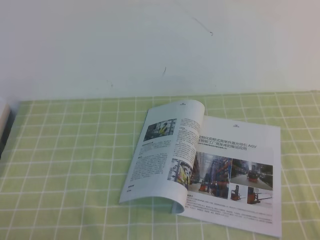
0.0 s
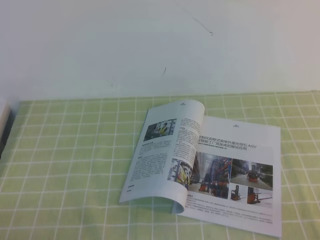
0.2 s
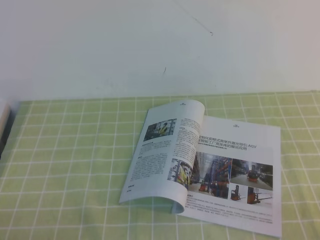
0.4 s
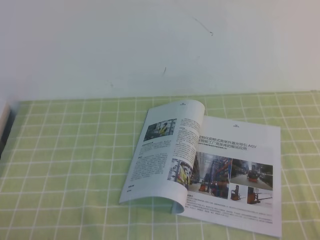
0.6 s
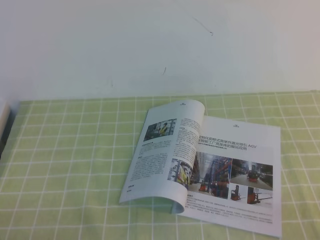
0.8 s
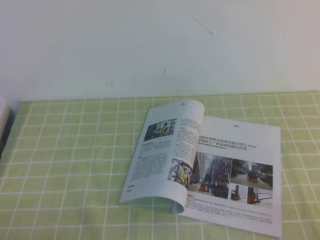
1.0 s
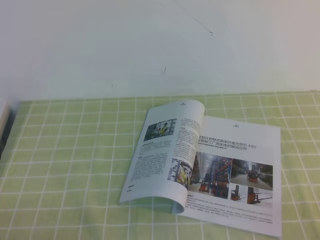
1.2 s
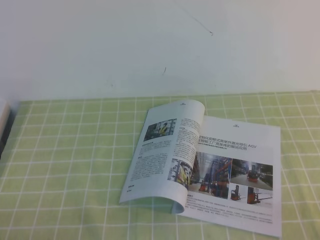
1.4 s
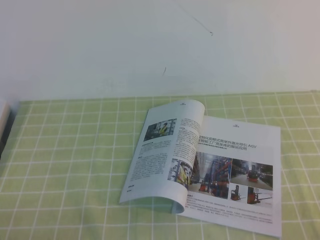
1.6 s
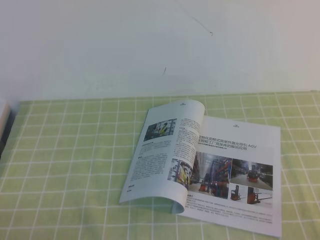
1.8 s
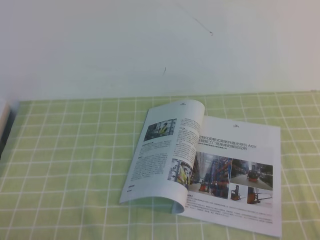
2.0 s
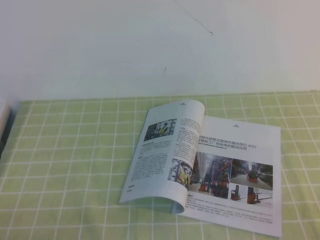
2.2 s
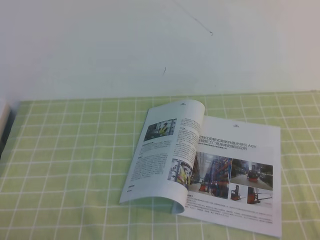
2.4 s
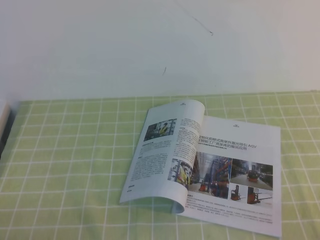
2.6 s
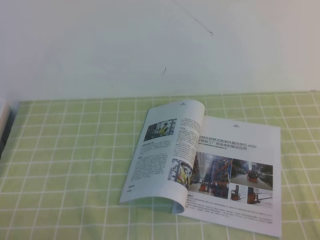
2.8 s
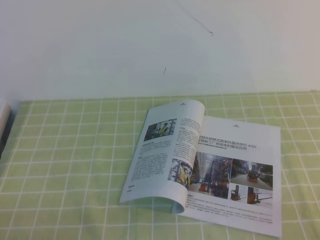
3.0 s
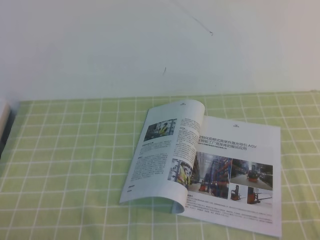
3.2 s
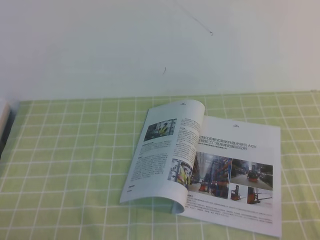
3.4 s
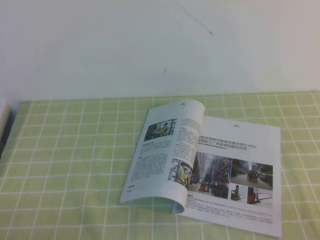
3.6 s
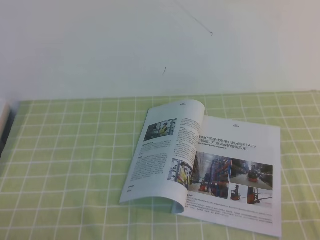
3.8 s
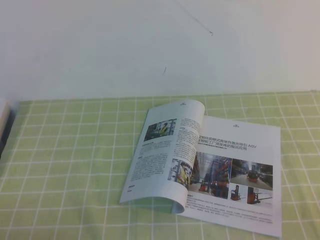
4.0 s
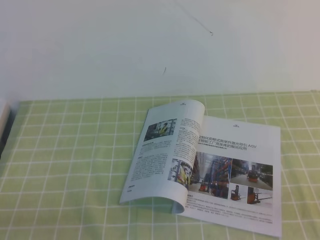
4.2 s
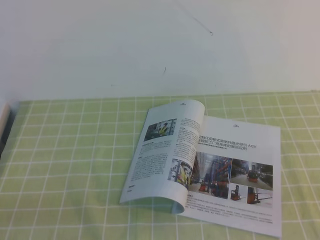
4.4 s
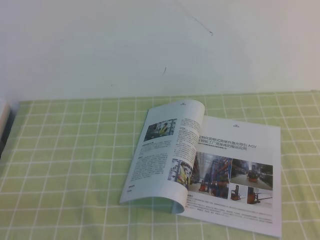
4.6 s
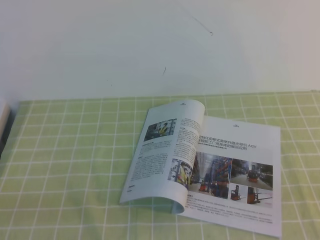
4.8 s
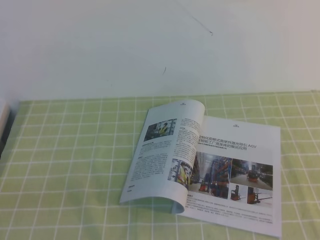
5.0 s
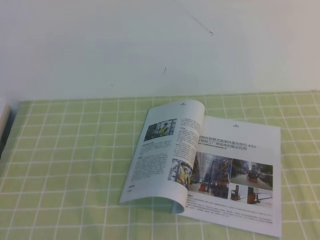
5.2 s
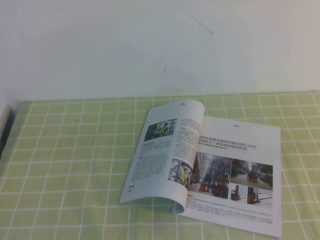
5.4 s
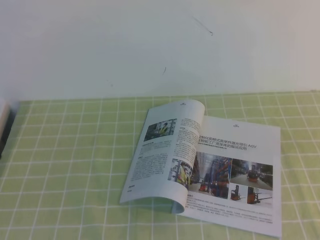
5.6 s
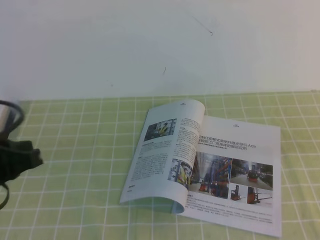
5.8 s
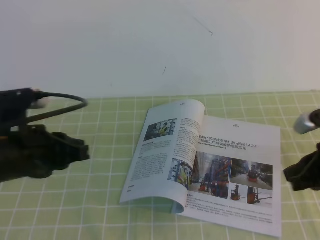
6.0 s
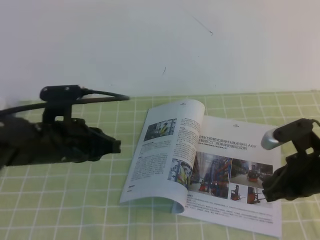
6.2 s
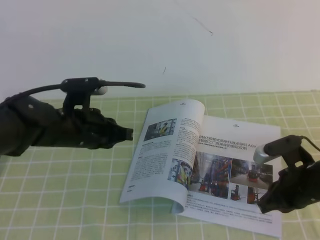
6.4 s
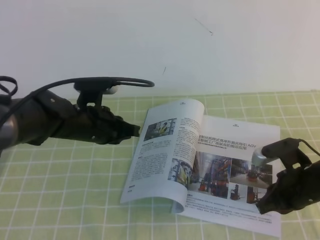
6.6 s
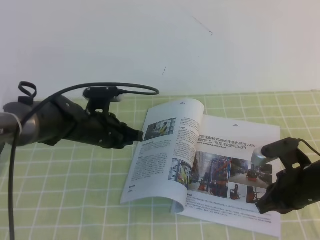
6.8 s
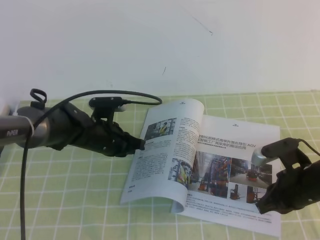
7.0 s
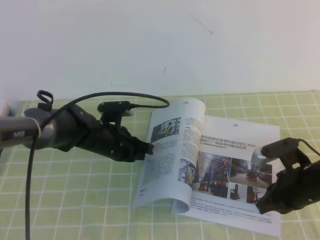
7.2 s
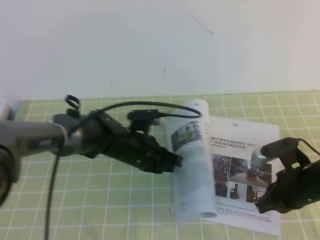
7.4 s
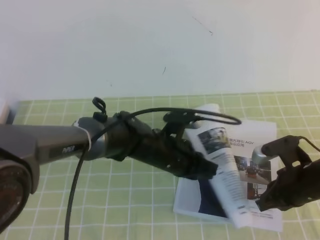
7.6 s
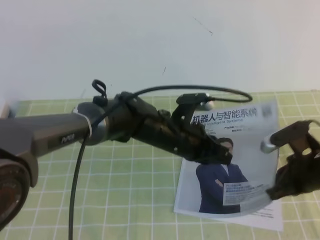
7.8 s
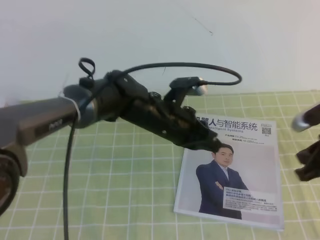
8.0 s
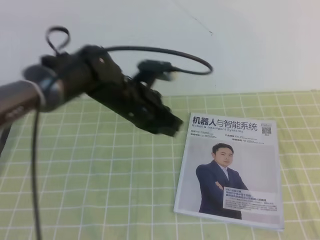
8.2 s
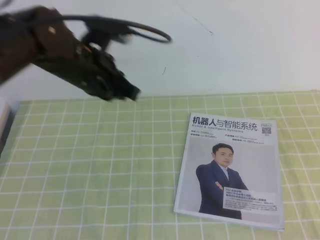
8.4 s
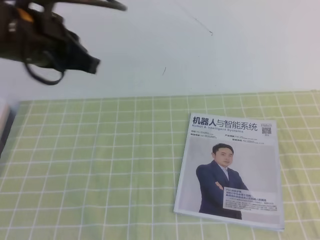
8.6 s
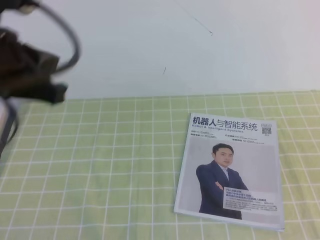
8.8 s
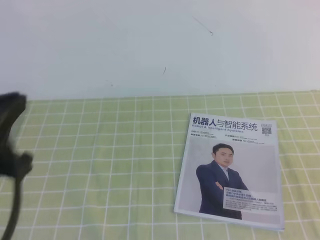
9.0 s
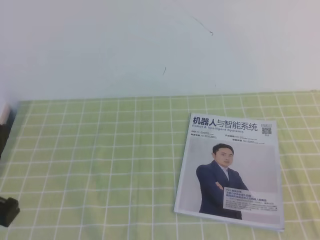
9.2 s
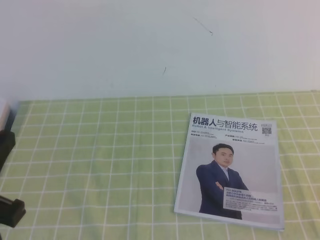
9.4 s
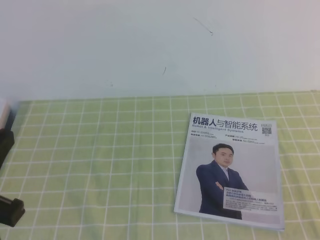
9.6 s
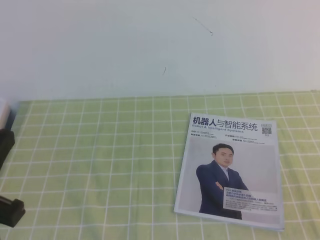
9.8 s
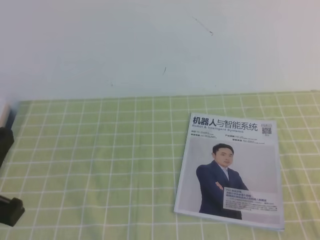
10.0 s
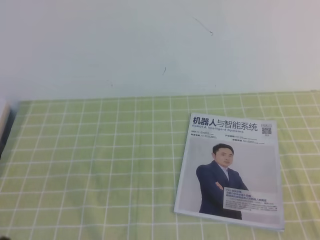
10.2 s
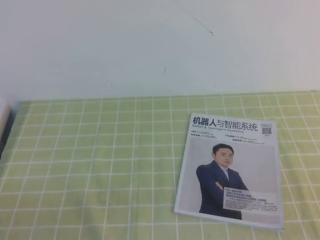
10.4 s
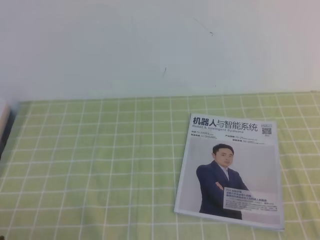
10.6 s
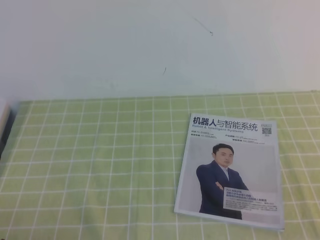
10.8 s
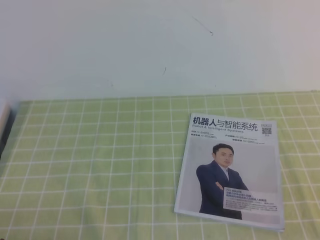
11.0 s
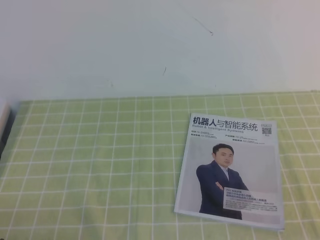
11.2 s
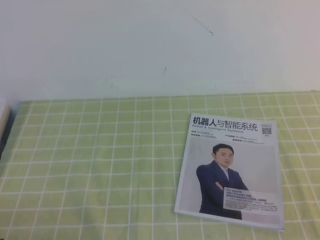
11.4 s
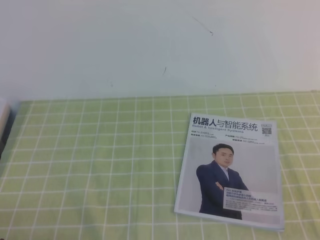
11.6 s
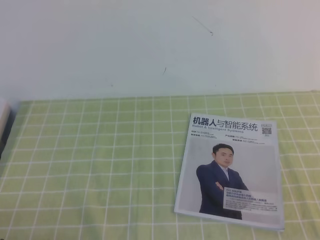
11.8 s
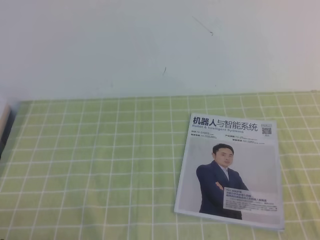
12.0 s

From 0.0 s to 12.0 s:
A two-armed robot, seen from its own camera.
Task of the whole recording: on the green tablecloth, hold the book with one hand and close it with the other.
From 0.0 s to 3.0 s: The two grippers keep their place.
From 4.4 s to 6.0 s: The grippers both shift forward by approximately 20 cm.
From 6.0 s to 7.6 s: The right gripper moves downward, roughly 10 cm. The left gripper heads to the right, forward and downward, covering about 25 cm.
From 7.6 s to 9.0 s: The right gripper moves backward, upward and to the right, roughly 30 cm; the left gripper heads upward, backward and to the left, covering approximately 35 cm.
From 9.0 s to 10.4 s: The left gripper goes roughly 20 cm downward and backward.

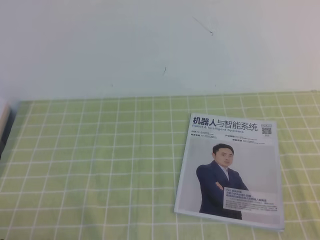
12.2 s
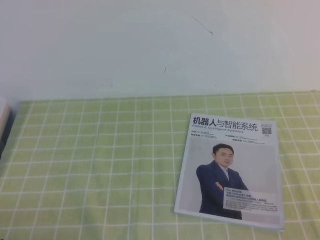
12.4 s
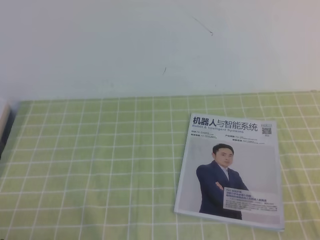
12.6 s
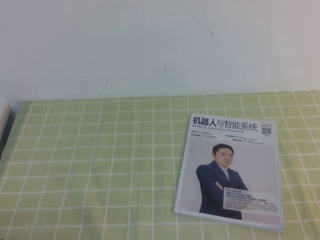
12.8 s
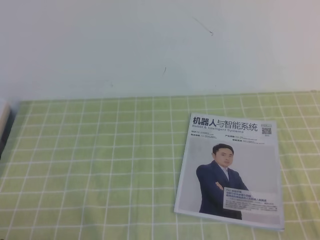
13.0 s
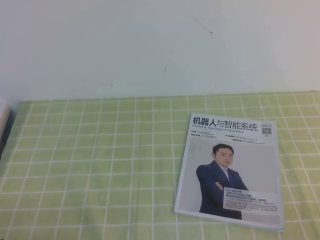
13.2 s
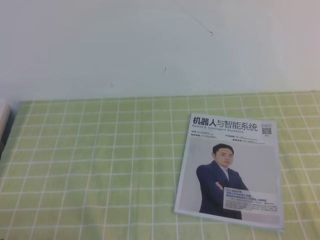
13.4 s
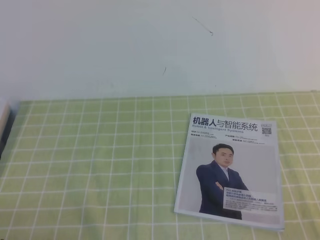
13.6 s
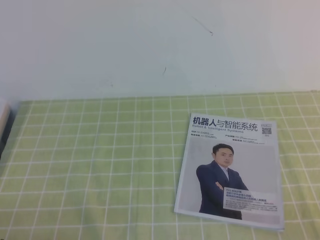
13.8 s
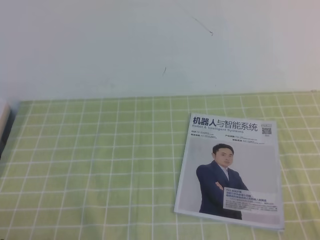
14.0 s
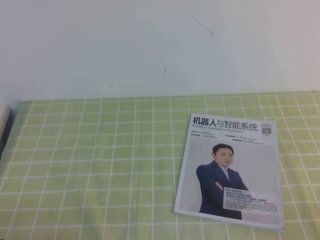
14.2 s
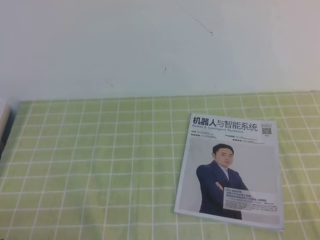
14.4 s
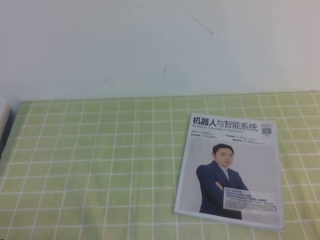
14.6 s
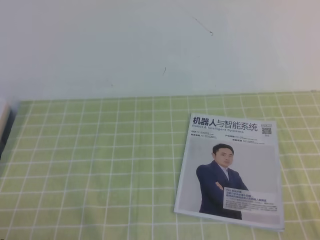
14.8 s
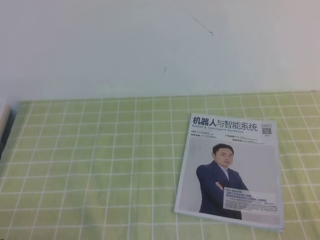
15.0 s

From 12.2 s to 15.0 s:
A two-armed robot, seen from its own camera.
Task of the whole recording: on the green tablecloth, hold the book with one hand and close it with the other.
From 13.6 s to 15.0 s: Both grippers stay put.
